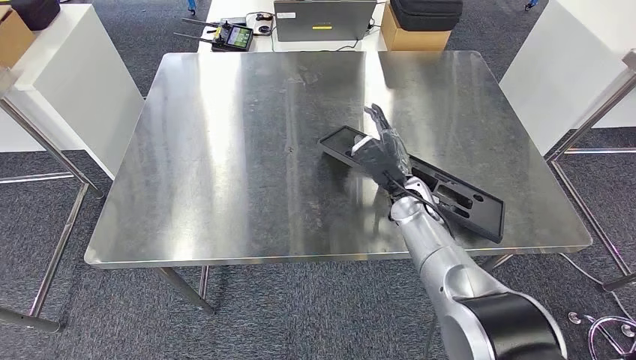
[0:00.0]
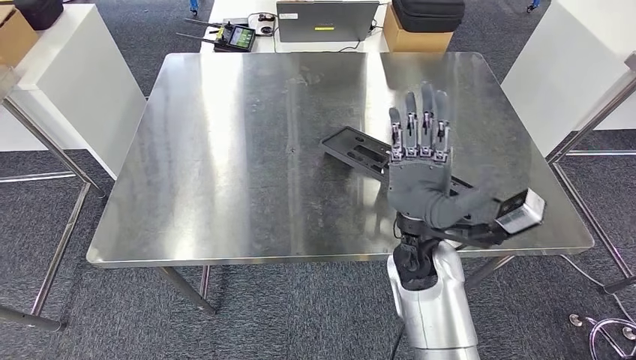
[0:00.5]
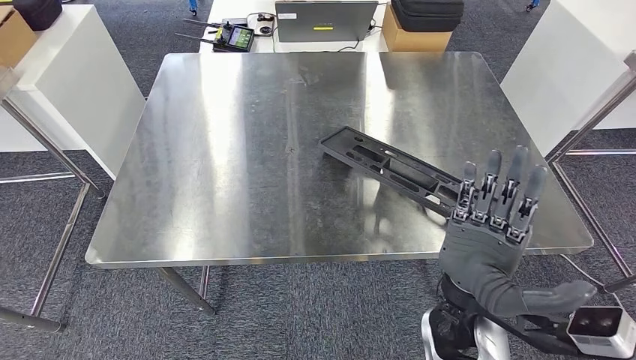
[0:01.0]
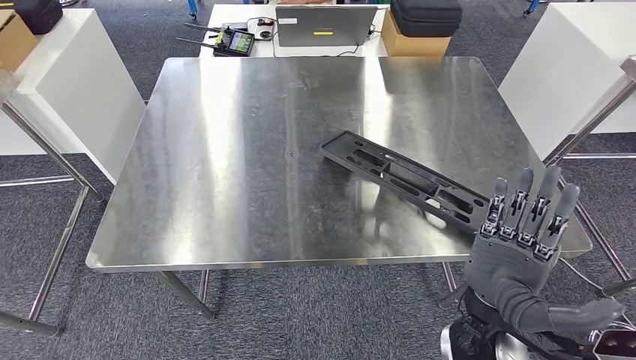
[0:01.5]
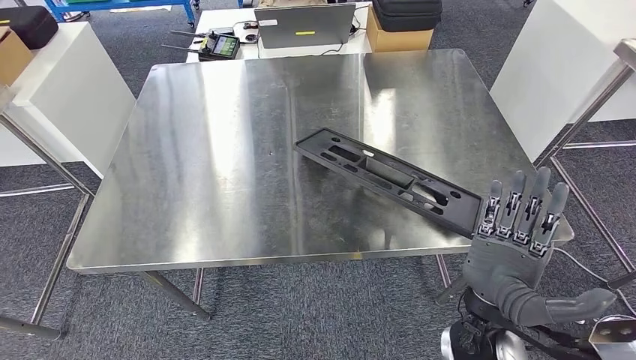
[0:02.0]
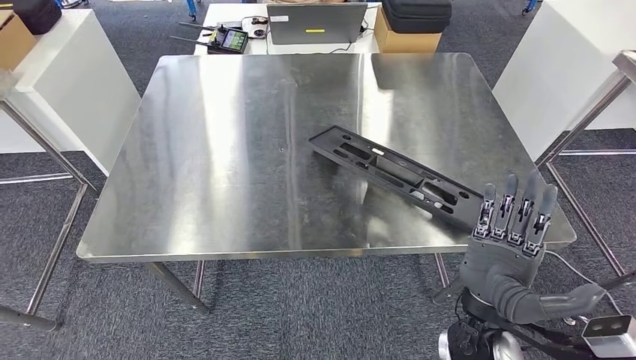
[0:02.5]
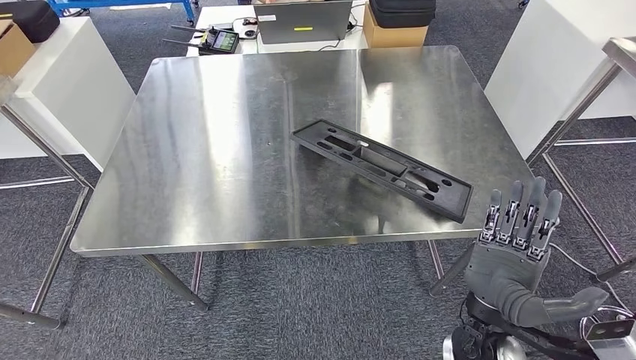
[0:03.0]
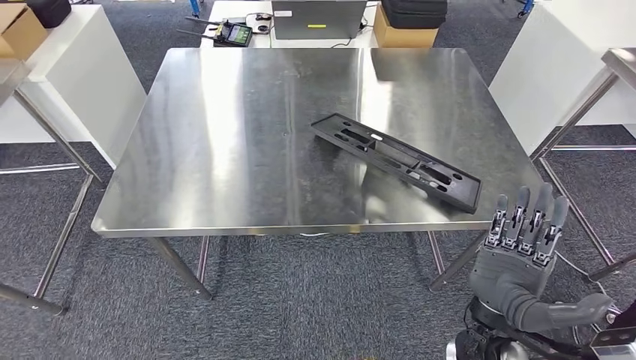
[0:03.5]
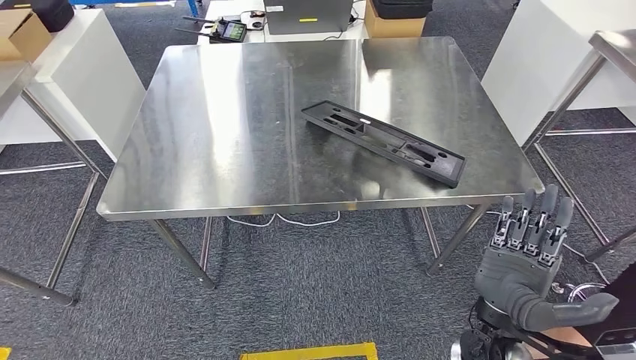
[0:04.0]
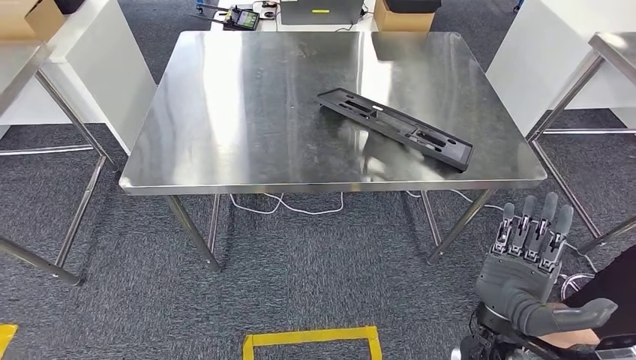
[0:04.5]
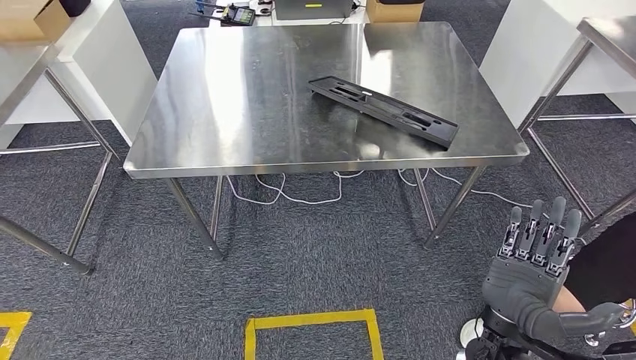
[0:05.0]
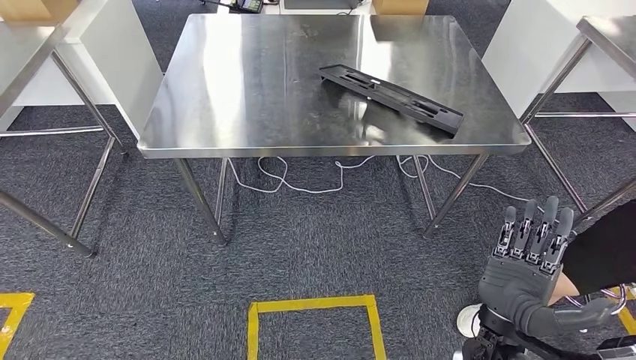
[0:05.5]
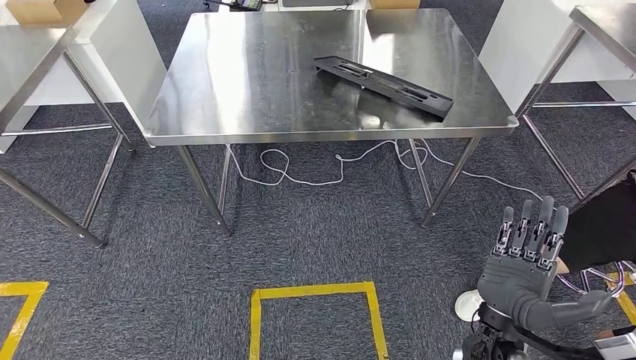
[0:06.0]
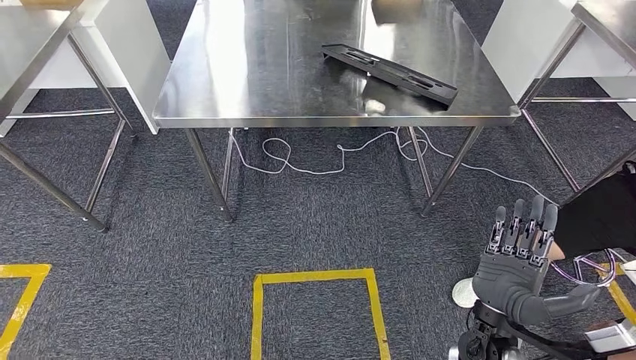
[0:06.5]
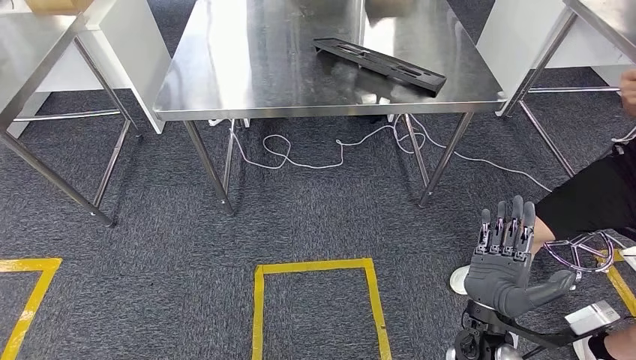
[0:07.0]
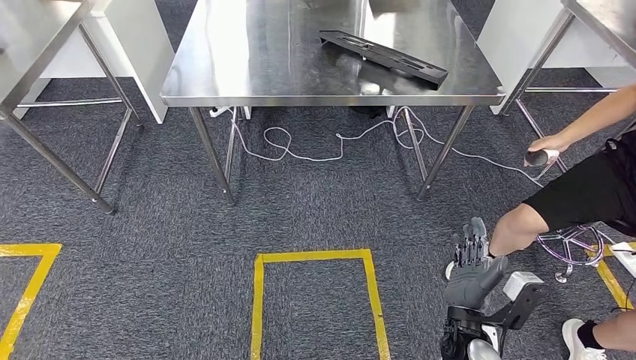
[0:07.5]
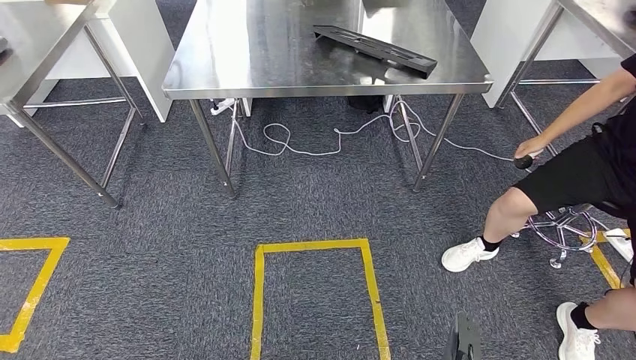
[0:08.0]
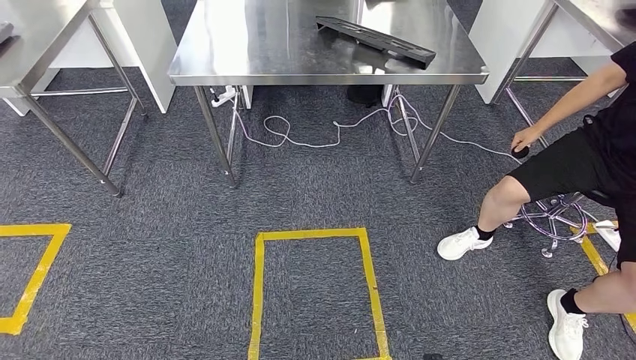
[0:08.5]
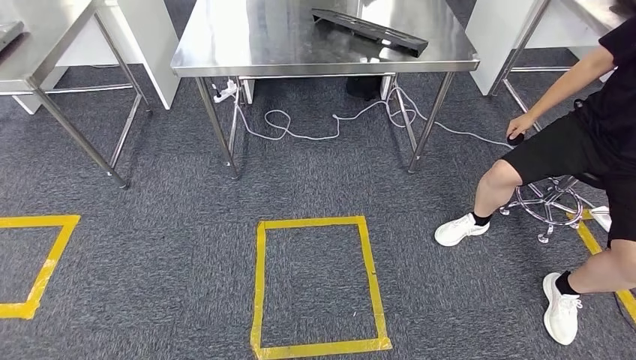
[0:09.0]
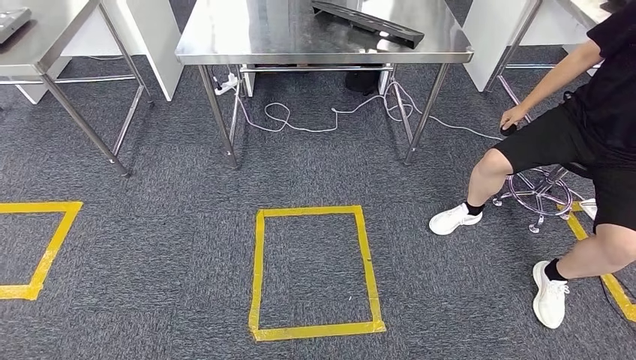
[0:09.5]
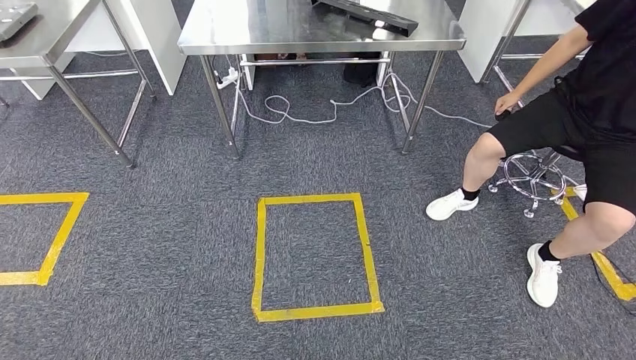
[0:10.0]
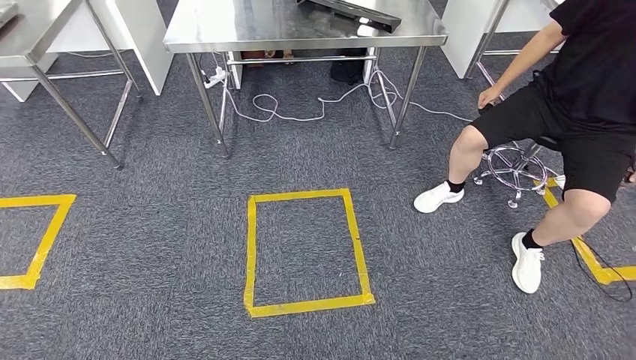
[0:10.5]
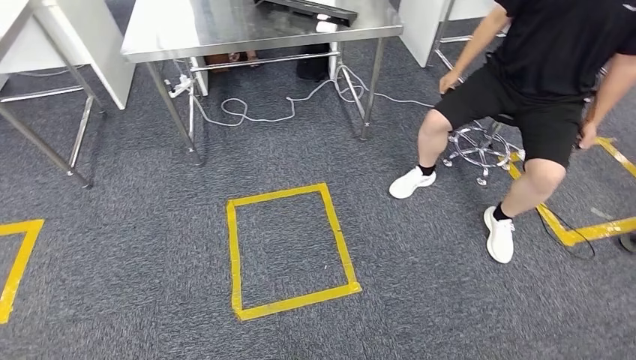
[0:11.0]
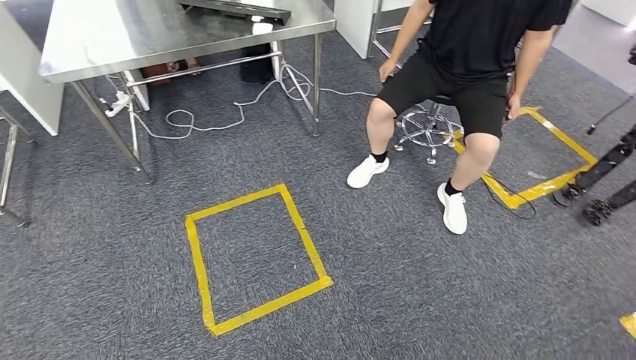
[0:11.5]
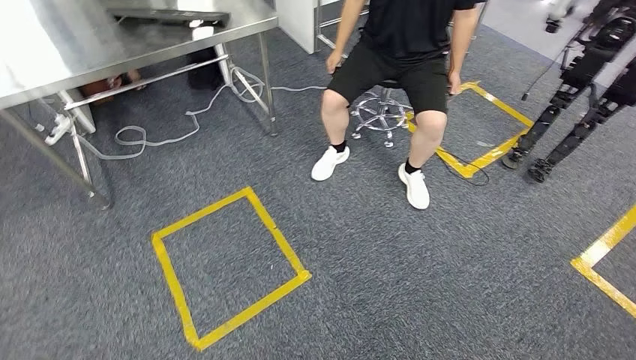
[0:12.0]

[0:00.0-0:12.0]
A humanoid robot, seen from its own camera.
Step, 0:00.0 to 0:07.0: Insert the large material into the corresponding slot on the workbench.

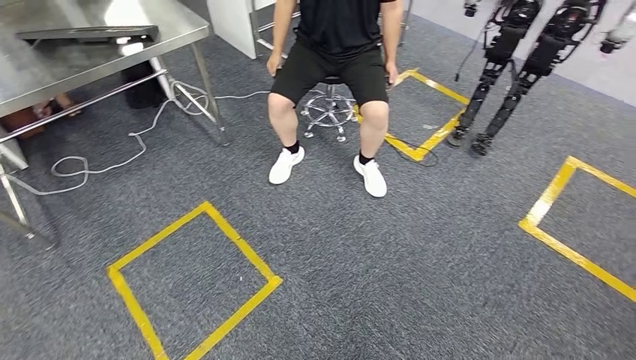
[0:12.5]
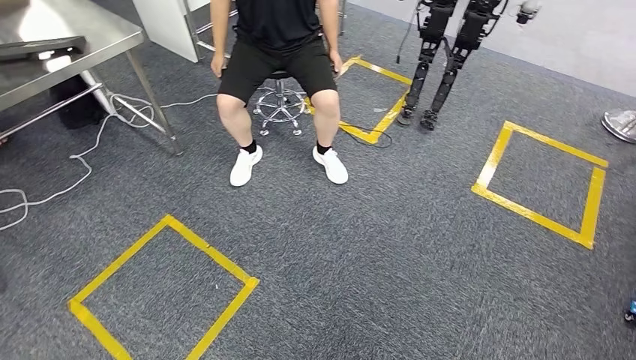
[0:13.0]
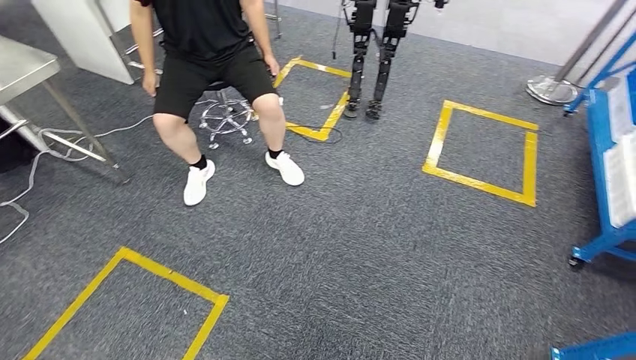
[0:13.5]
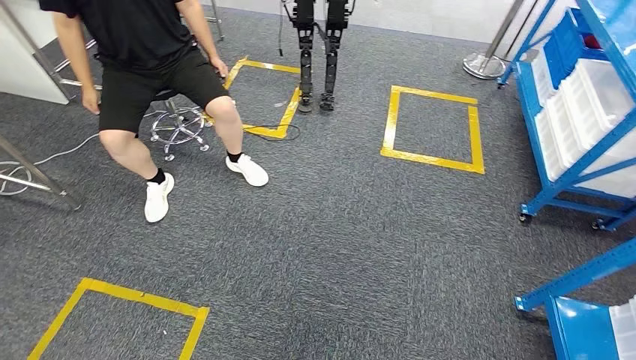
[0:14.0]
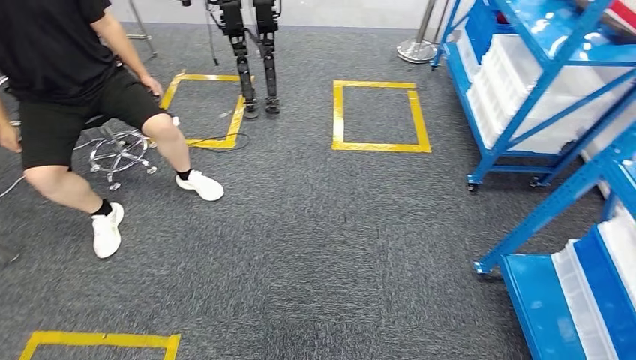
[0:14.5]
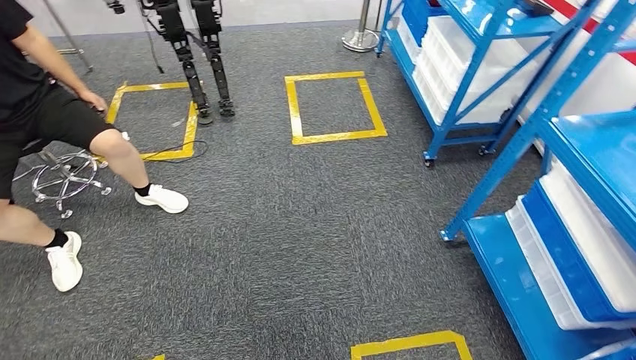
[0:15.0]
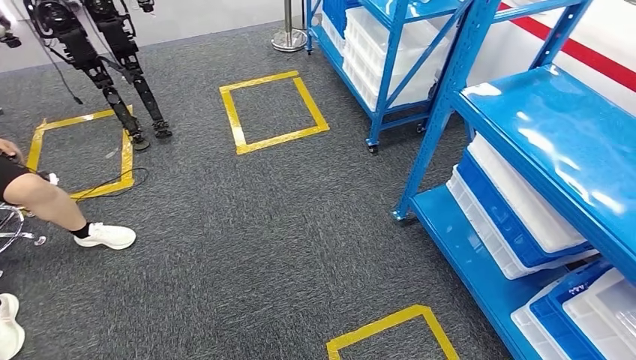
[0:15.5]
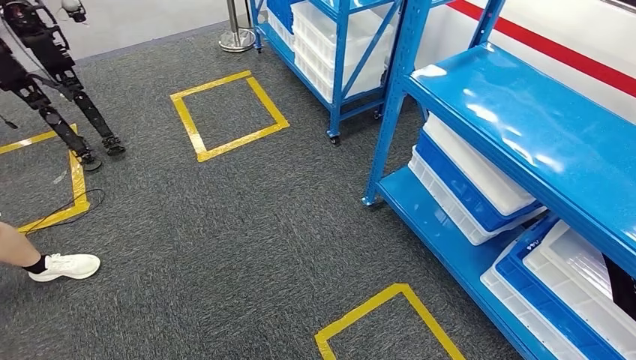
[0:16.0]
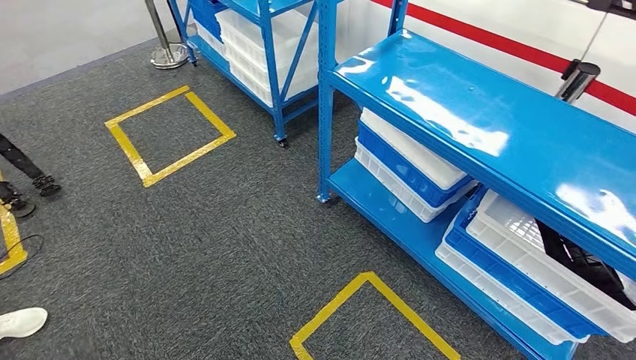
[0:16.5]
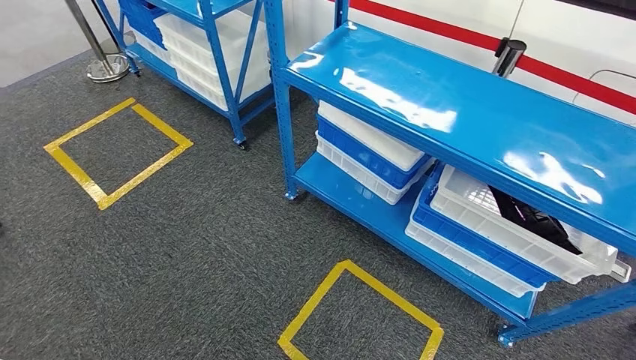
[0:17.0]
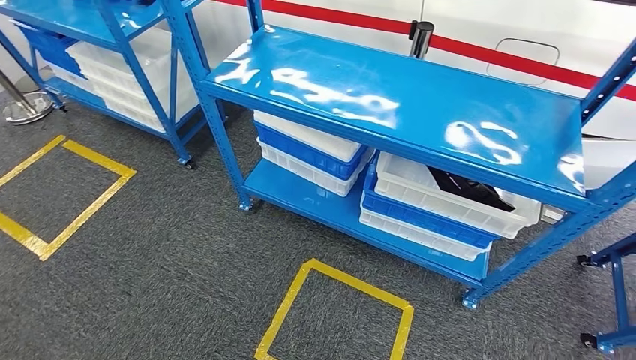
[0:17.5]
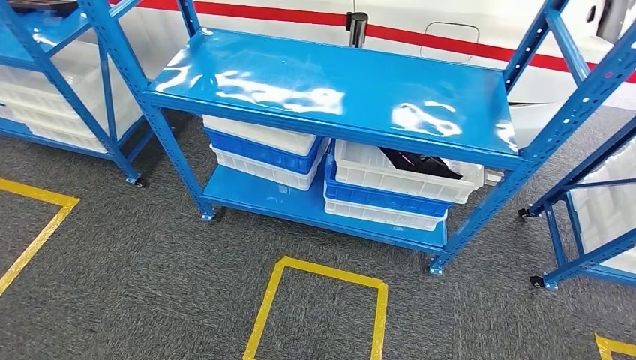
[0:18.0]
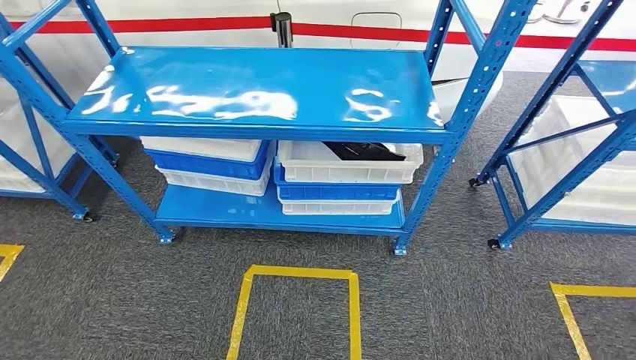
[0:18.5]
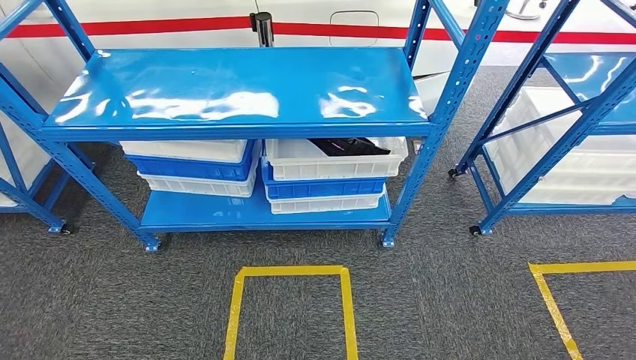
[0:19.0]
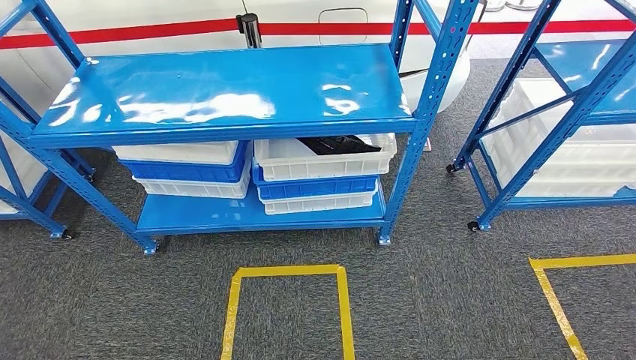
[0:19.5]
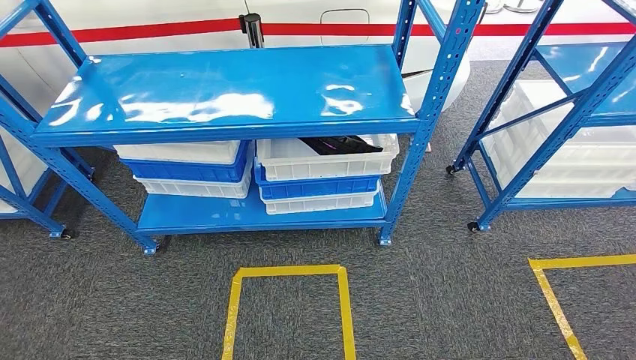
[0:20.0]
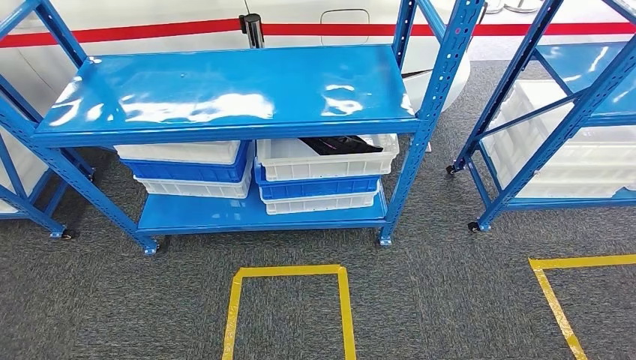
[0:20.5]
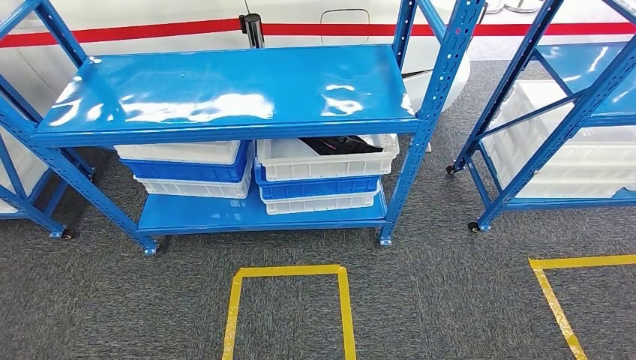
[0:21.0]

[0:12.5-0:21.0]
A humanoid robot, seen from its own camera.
Step, 0:12.5 to 0:21.0: Return to the initial position at the shelf.
